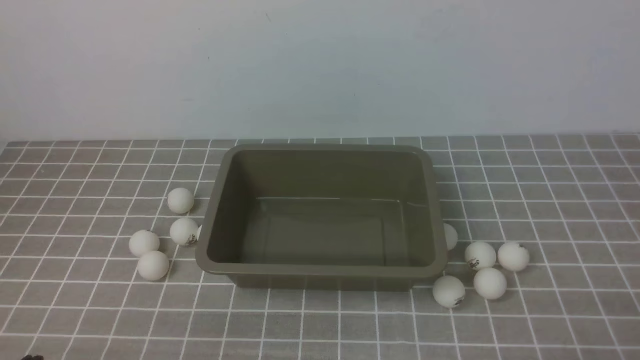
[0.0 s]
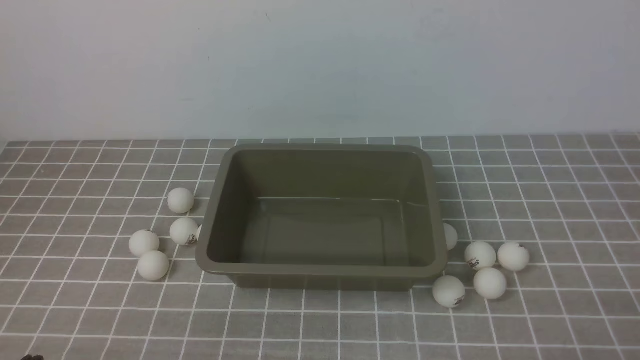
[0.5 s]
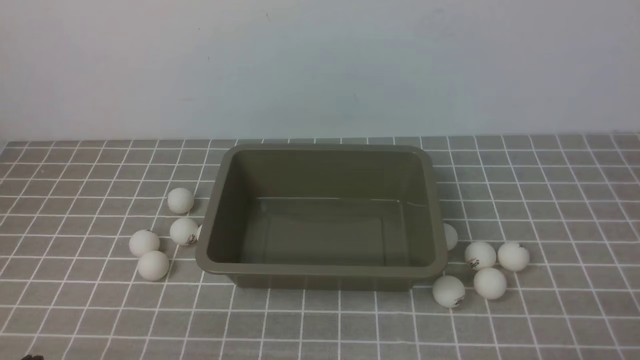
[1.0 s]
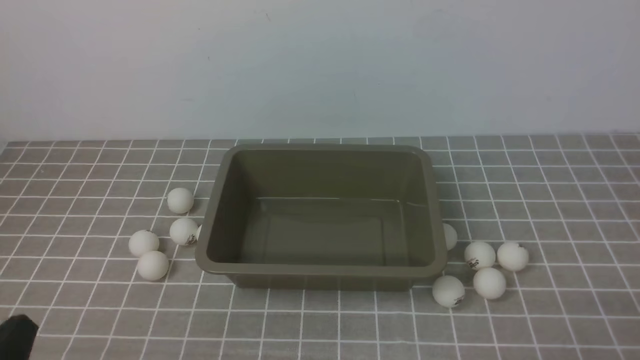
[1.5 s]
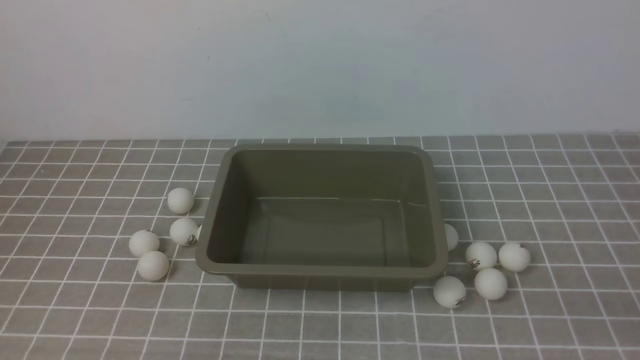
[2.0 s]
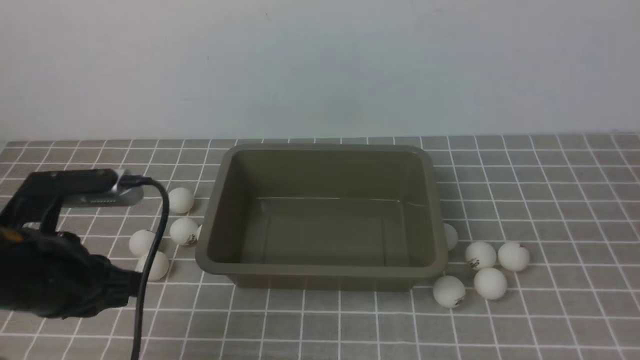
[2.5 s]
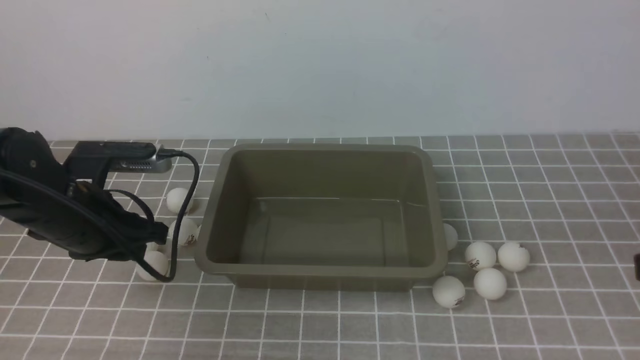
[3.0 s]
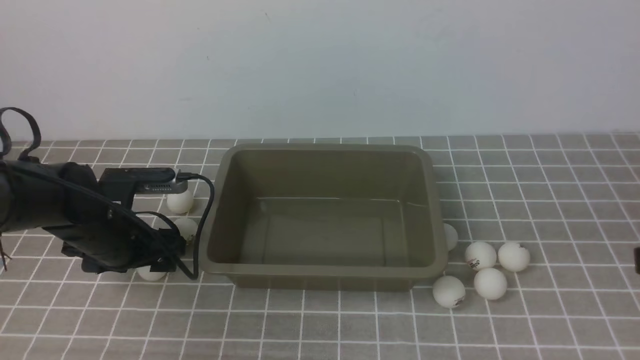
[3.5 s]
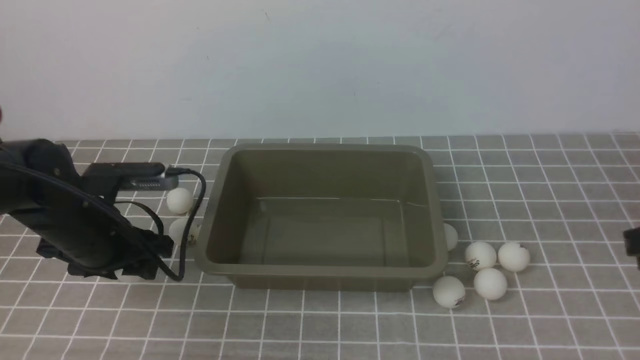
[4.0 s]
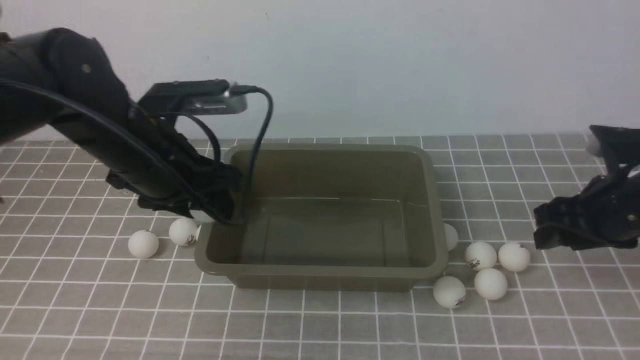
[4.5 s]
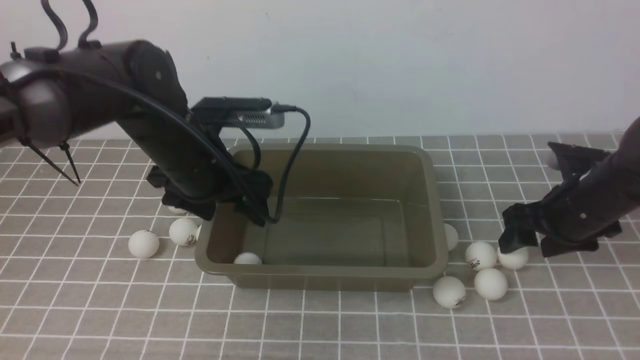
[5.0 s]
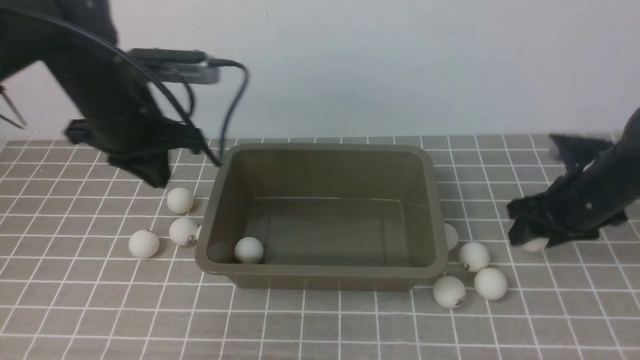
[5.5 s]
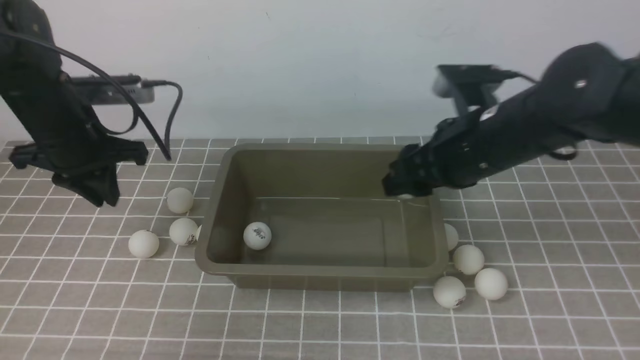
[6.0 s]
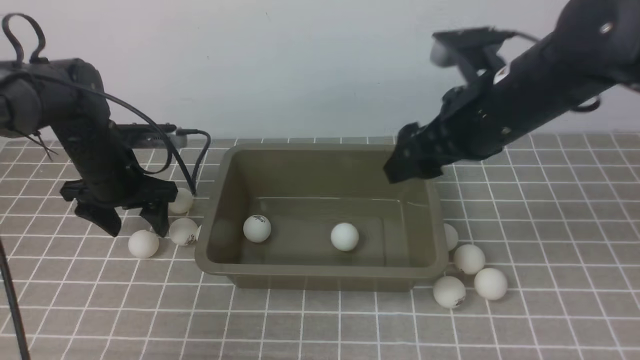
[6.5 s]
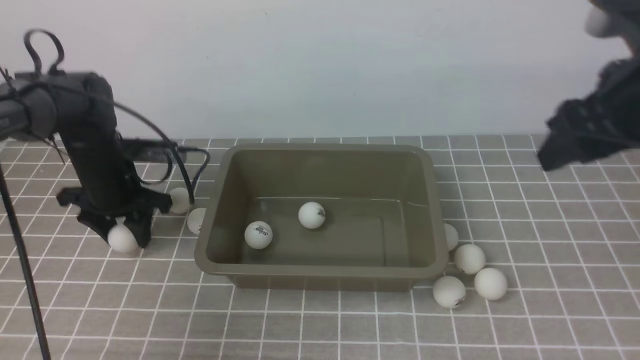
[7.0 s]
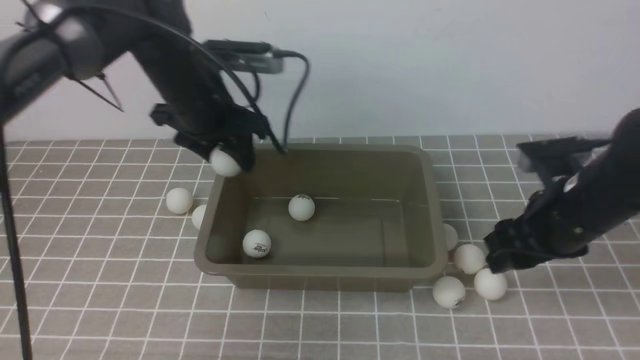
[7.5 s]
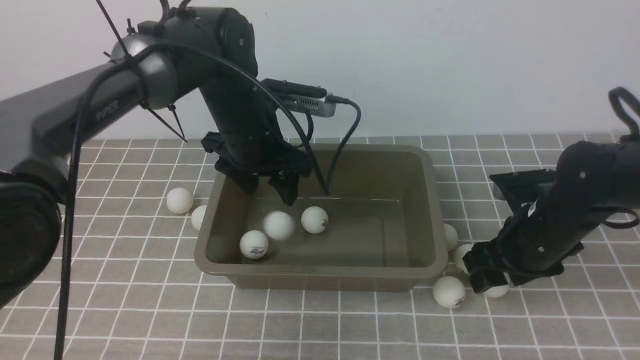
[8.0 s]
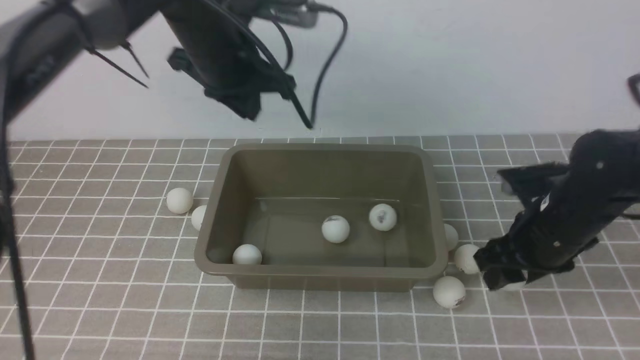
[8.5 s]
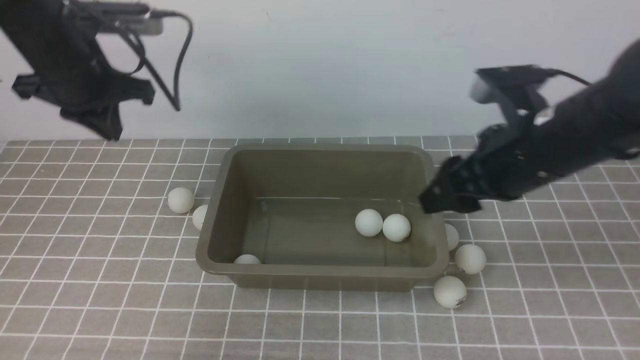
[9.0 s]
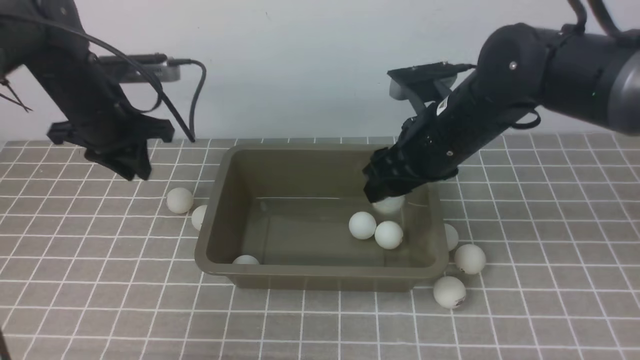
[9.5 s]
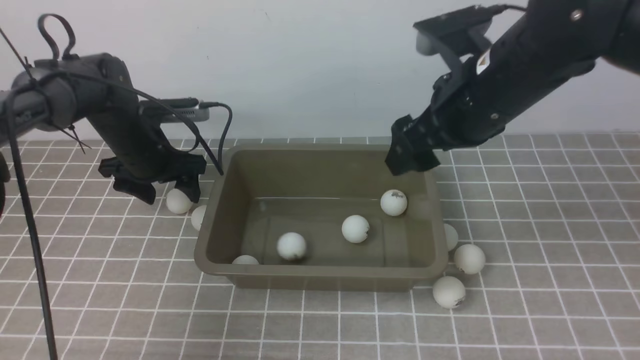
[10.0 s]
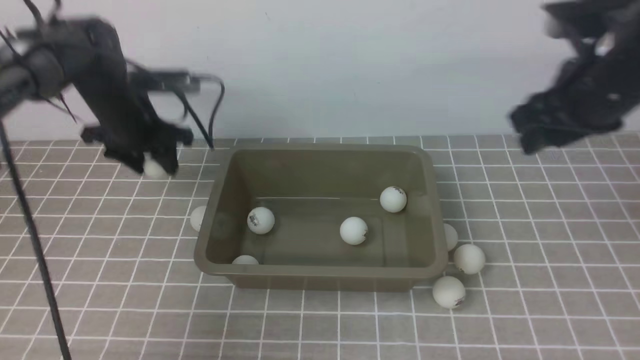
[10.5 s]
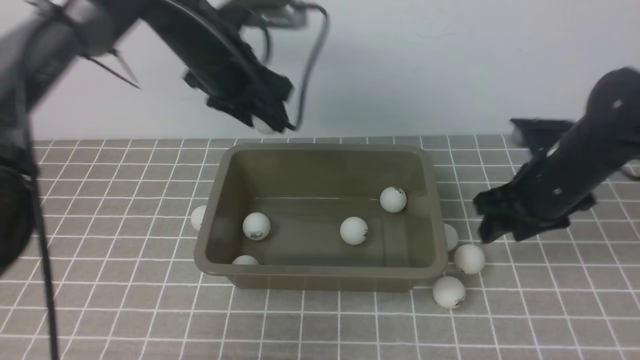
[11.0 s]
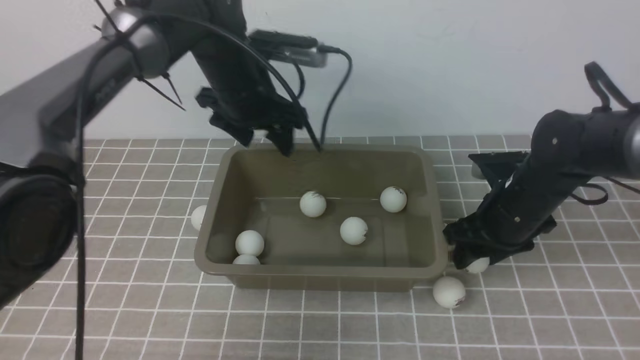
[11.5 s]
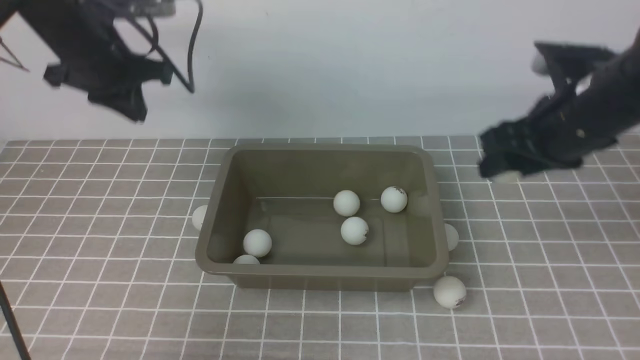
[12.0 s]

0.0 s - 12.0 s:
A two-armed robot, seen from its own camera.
Step, 0.0 s - 4.0 s: use the left arm to clamp the table tennis ball closest to it.
Step, 7.5 s - 8.0 s: use the left arm to put the table tennis ball into the box.
Step, 9.0 s - 9.5 s: use the right arm to put the table tennis ball into the box.
Step, 10.0 s - 10.5 s: use the left arm to clamp the table tennis ball closest to it.
2.0 s - 4.0 s: The left gripper shifts roughly 25 cm forward, and opens up.
4.0 s - 6.0 s: The left gripper shifts some 10 cm forward, and travels to the right and back again, some 10 cm each way. The right gripper goes about 20 cm forward and to the left, and opens.
6.0 s - 8.0 s: The left gripper moves to the right, roughly 20 cm, and opens its fingers, while the right gripper goes about 15 cm downward and to the right.
8.0 s - 10.0 s: The left gripper shifts approximately 15 cm to the left and downward, and closes and opens again; the right gripper goes some 20 cm upward and to the left.
10.0 s - 12.0 s: The left gripper moves upward, approximately 10 cm, goes to the right and returns, roughly 10 cm each way, and closes. The right gripper travels to the right by approximately 5 cm, goes downward and returns, about 15 cm each way, and closes up.

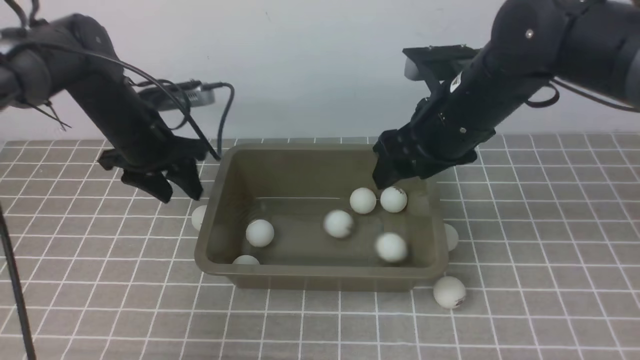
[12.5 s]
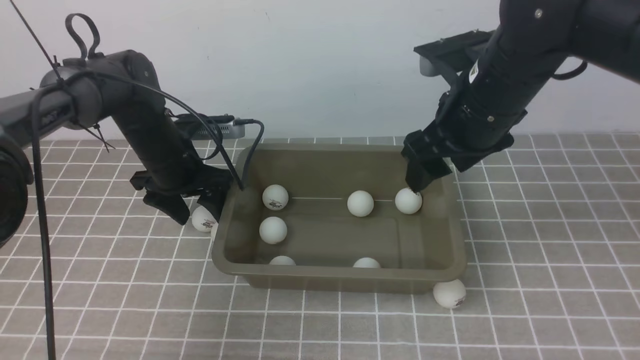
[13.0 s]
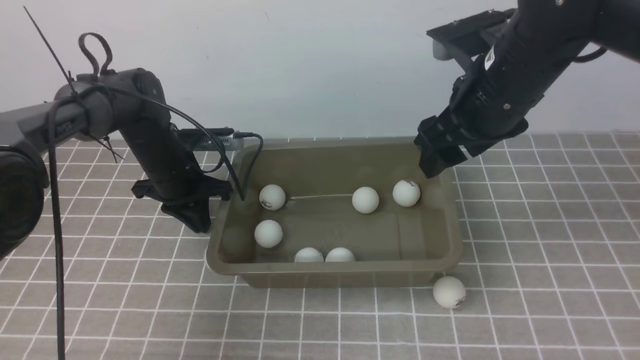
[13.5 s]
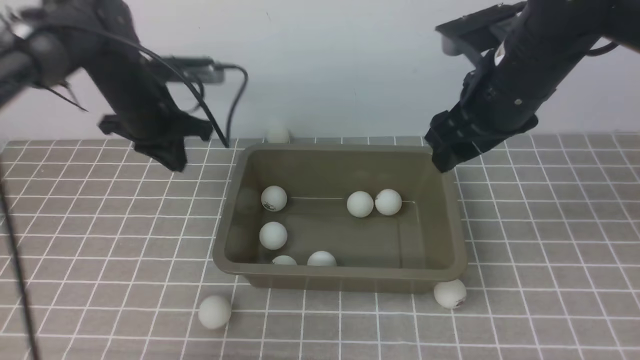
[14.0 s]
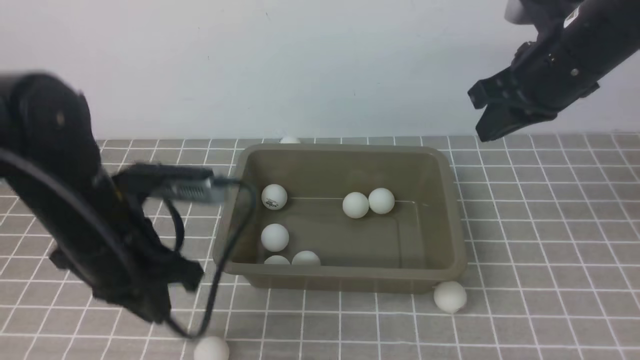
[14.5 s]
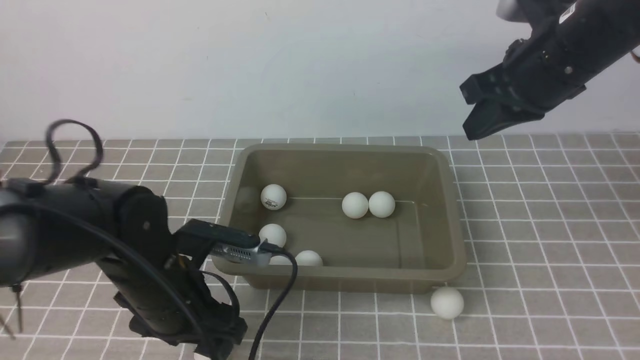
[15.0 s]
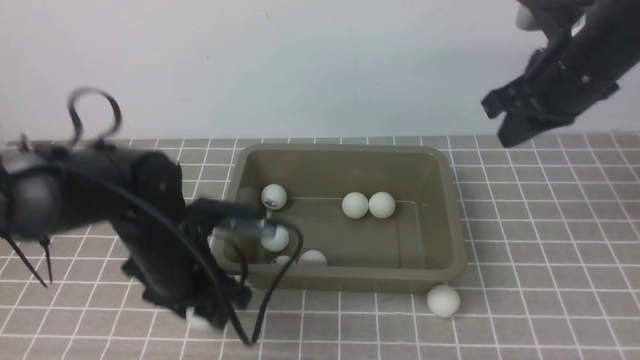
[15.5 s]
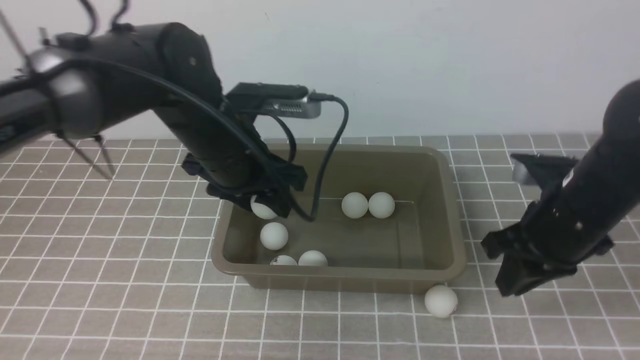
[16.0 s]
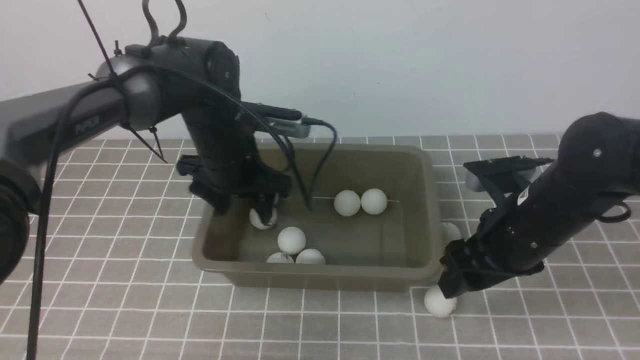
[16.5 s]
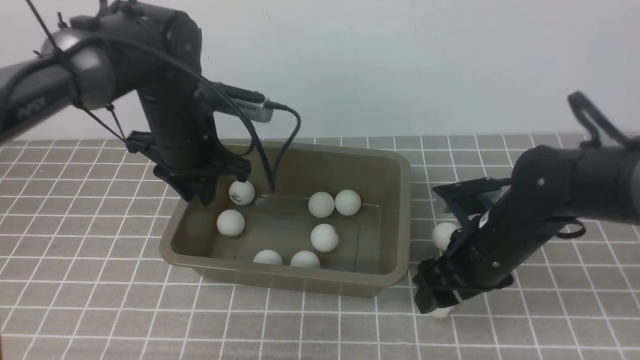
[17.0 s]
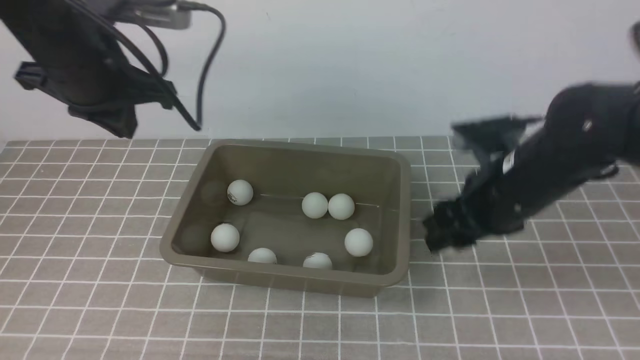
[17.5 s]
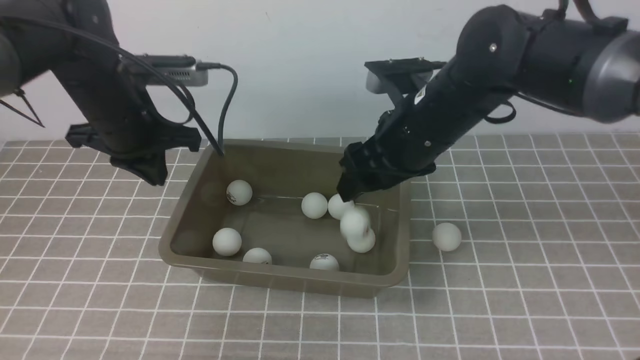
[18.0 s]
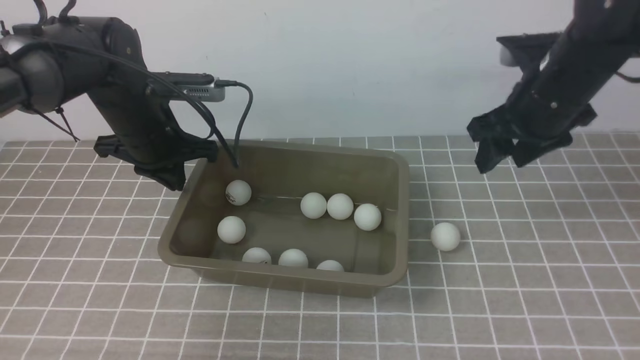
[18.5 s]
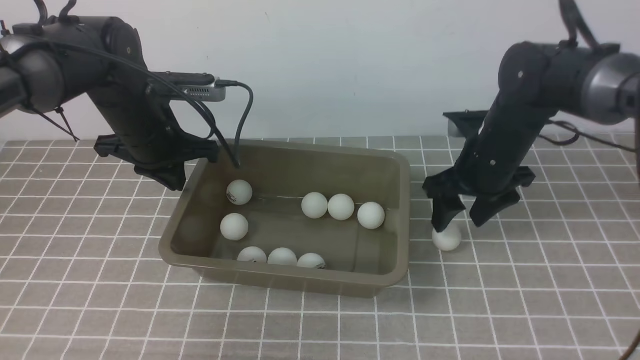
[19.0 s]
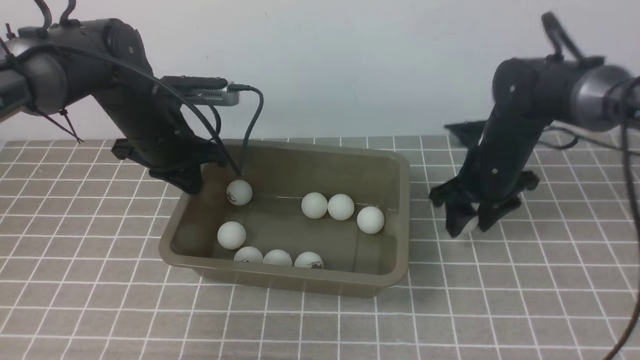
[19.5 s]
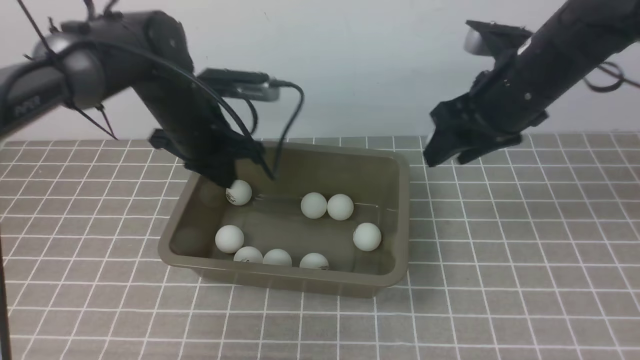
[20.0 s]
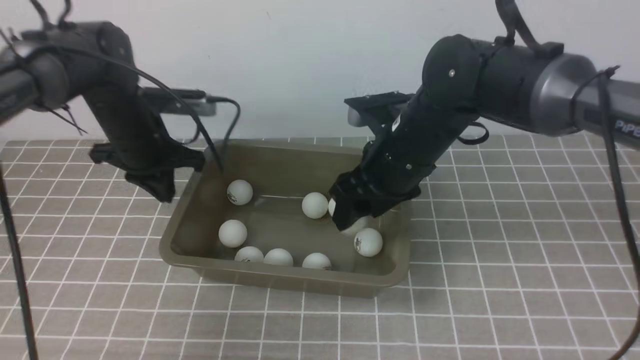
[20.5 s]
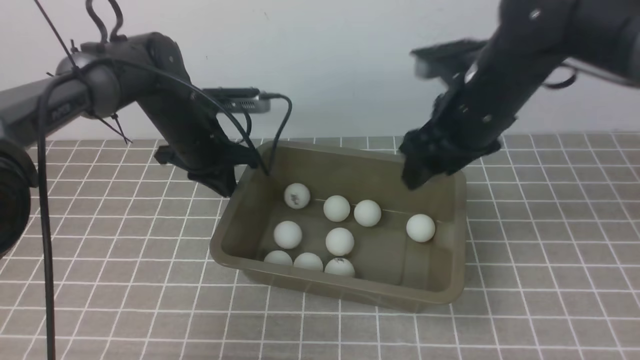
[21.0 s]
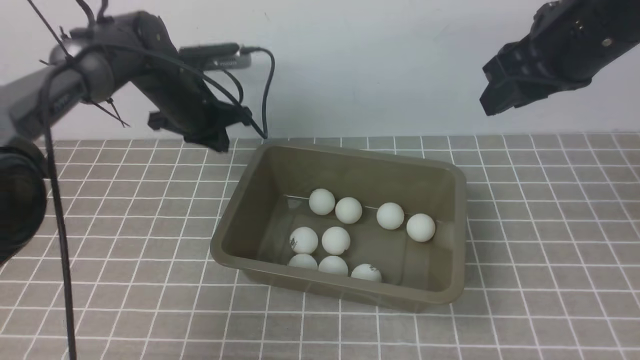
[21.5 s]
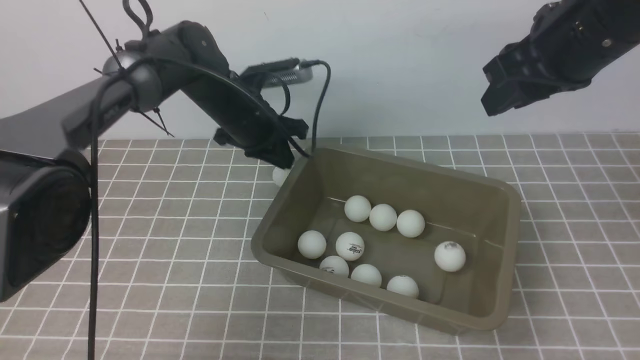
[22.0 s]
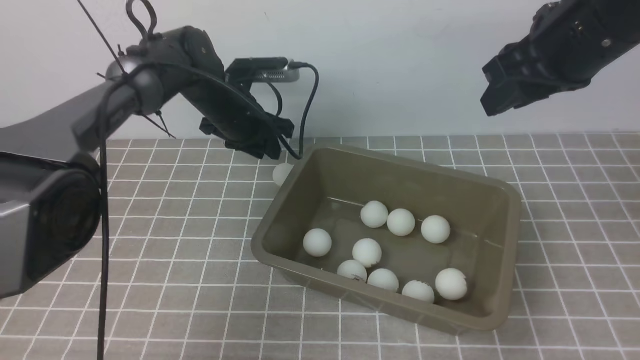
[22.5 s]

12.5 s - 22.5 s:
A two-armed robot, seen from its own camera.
Step, 13.0 s - 15.5 s: use the left arm to clamp the table tennis ball closest to it.
Step, 16.5 s - 17.5 s: use the right arm to clamp the table tennis ball closest to it.
Step, 18.5 s - 19.5 s: use the right arm to clamp the table tennis ball closest to it.
Step, 20.0 s - 20.5 s: use the right arm to put the table tennis ball into the box.
12.5 s - 14.5 s: The right gripper heads to the right, covering about 10 cm, and closes. The left gripper goes approximately 20 cm backward, and closes its fingers.
14.5 s - 16.5 s: The right gripper goes roughly 15 cm downward and backward, and opens up; the left gripper heads forward and to the right, covering roughly 15 cm, and opens its fingers.
16.5 s - 18.5 s: The right gripper goes approximately 10 cm forward and upward. The left gripper moves to the left, about 10 cm, goes upward and returns, about 10 cm each way, and closes.
18.5 s - 20.5 s: The right gripper shifts some 10 cm to the left.
20.5 s - 22.5 s: The right gripper goes approximately 20 cm upward and to the right, and closes up, while the left gripper heads to the right and forward, covering about 10 cm, and opens up.
